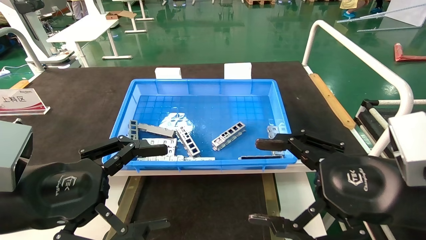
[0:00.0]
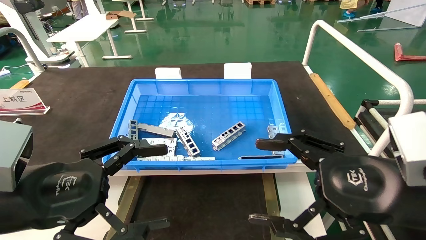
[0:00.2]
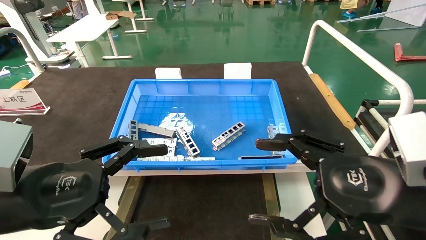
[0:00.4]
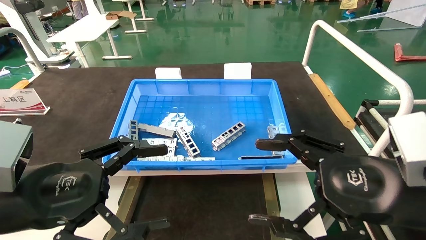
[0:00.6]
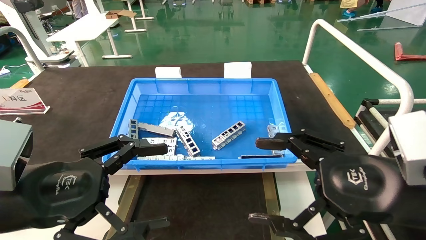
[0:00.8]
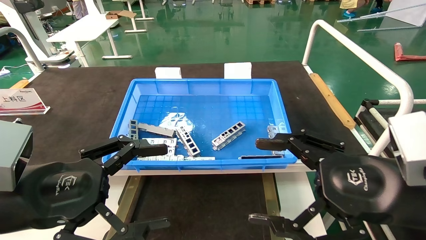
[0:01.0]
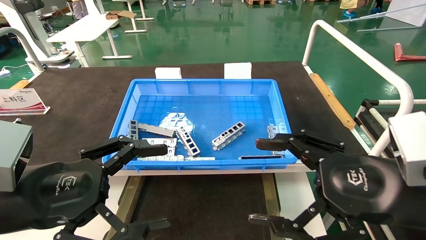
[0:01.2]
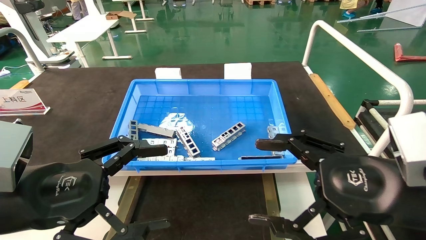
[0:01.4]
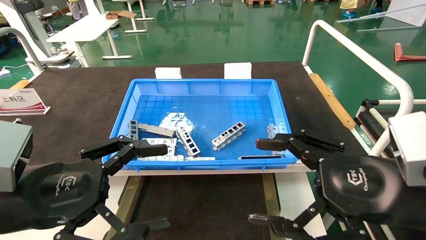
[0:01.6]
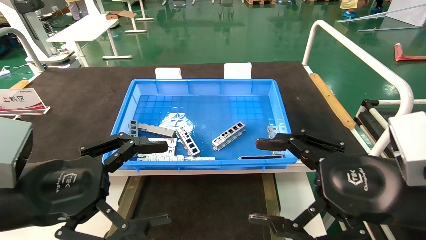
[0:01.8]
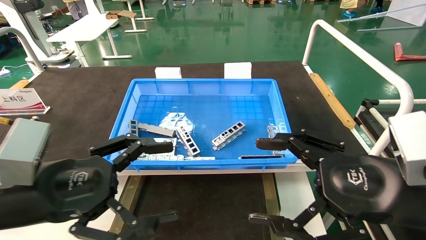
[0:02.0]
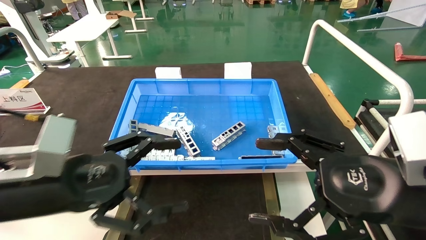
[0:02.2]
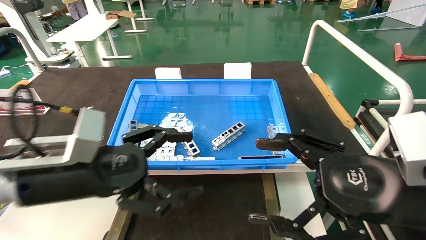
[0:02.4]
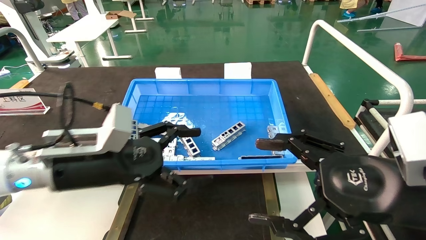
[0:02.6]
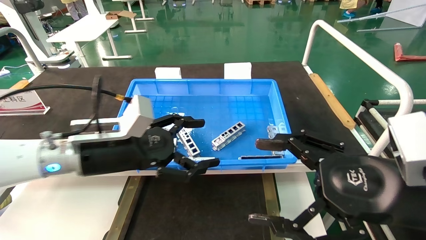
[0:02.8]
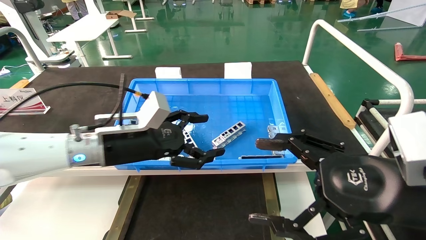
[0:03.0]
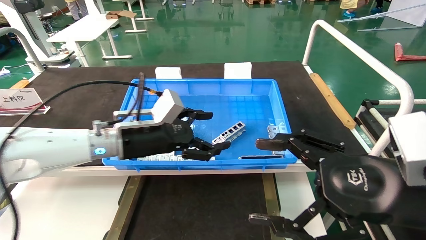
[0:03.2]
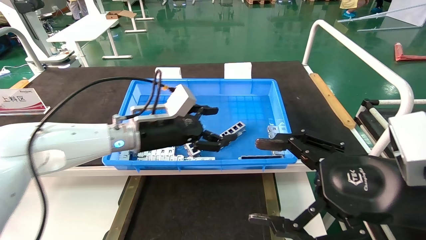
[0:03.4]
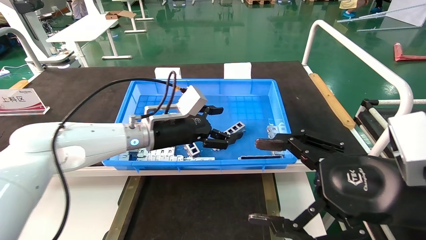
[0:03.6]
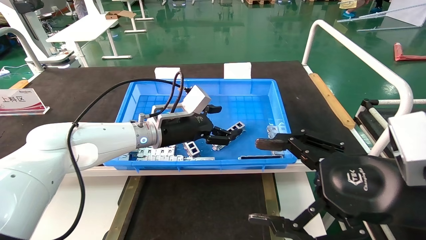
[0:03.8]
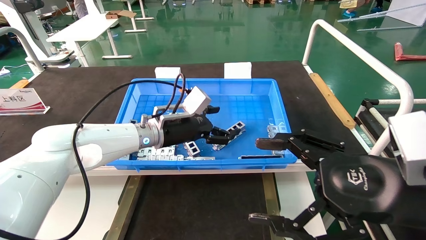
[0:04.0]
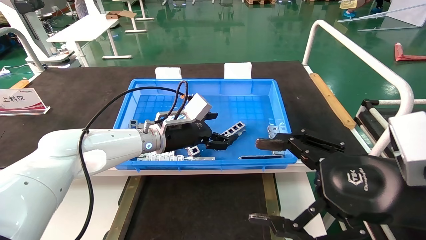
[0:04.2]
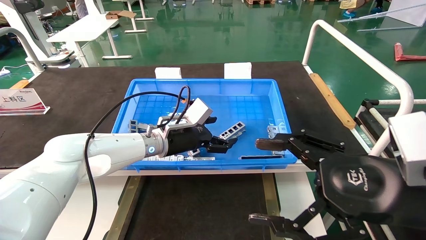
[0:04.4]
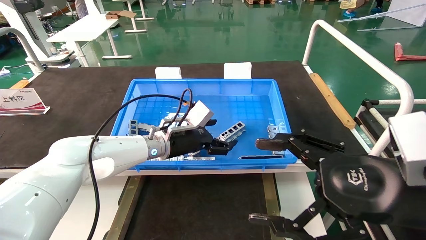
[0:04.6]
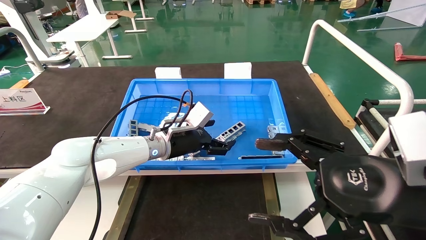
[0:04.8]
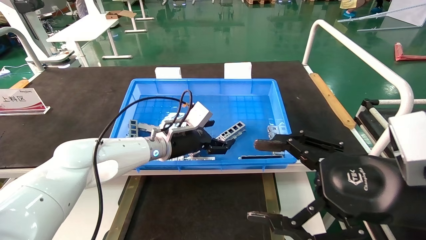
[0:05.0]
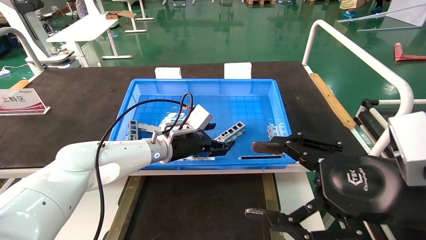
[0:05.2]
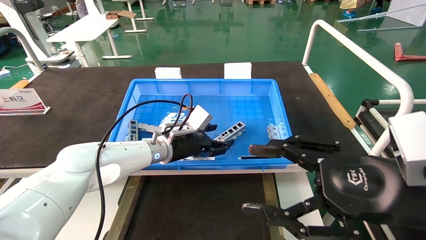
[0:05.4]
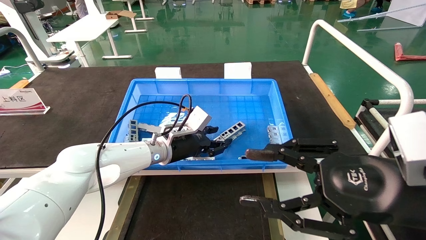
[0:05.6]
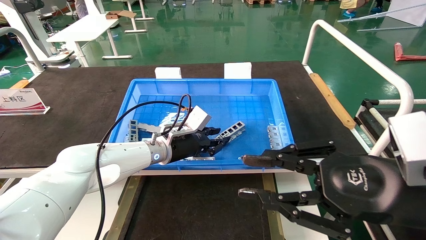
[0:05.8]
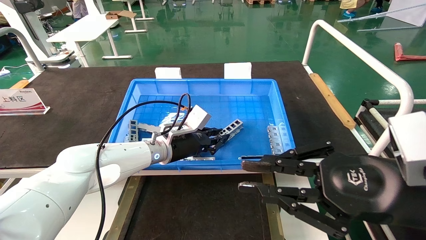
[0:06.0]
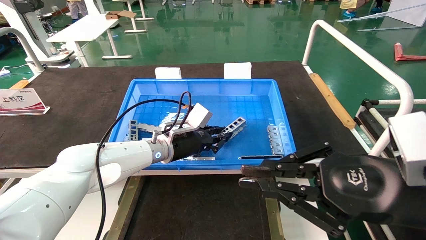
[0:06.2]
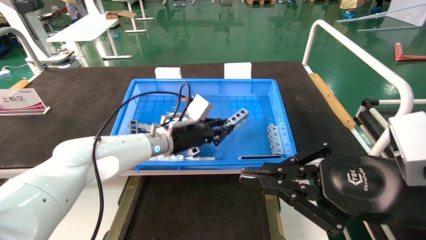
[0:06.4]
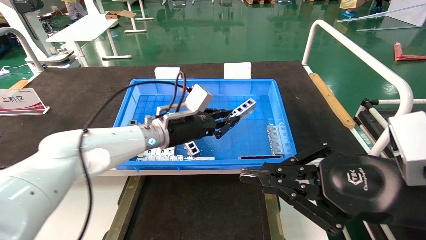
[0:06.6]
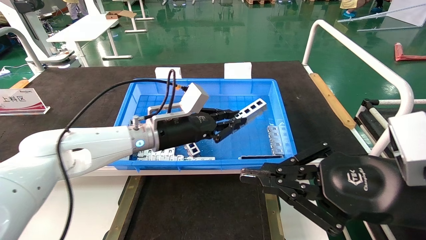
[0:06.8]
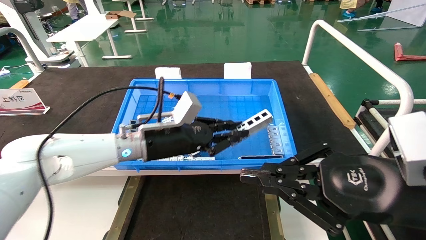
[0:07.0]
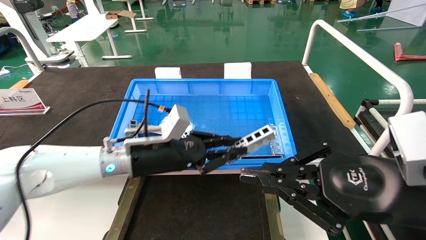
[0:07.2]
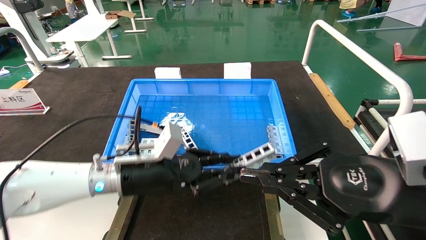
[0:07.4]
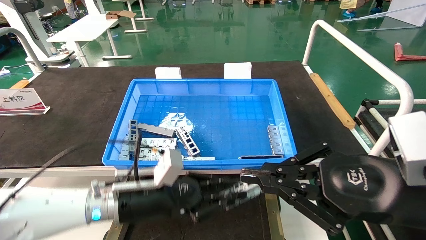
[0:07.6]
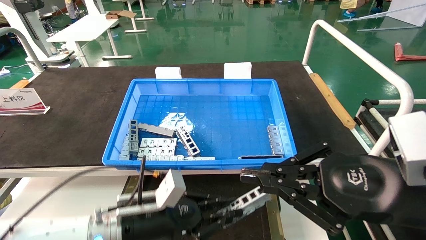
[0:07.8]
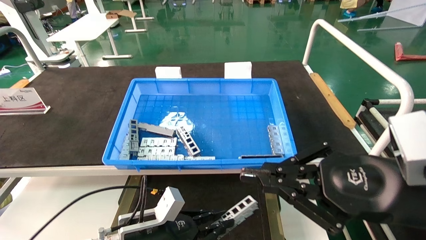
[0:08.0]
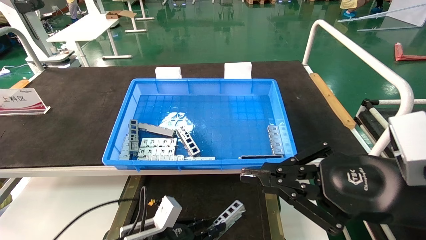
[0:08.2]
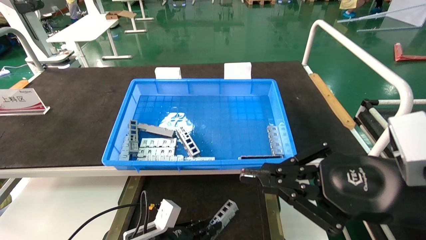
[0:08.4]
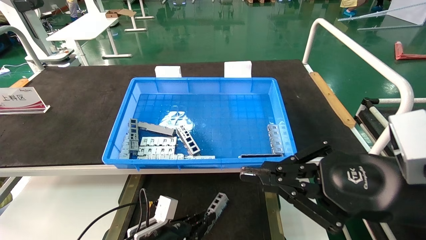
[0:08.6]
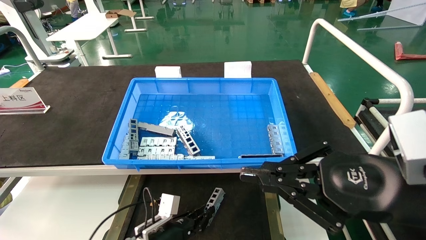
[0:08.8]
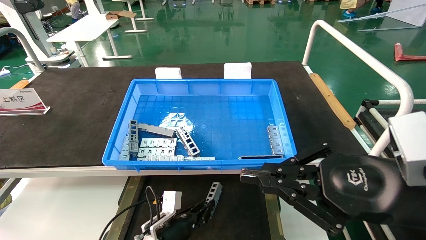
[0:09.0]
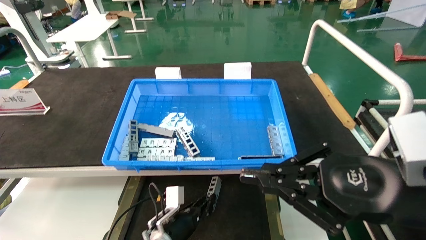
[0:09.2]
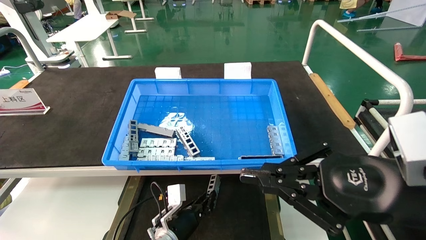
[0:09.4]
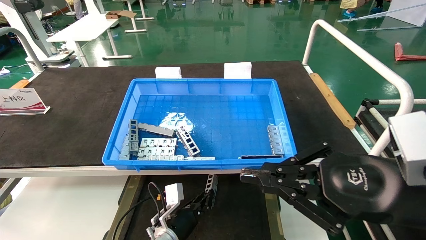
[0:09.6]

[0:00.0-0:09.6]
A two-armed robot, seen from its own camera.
Task of the whole recording: Grasp the part with one hand and place it on the black container.
Step, 0:02.0 to 0:06.0: Pick up the front USB bracket from the feeding area.
0:00.0 to 0:01.6: Neither gripper changes place.
0:01.6 to 0:03.2: The left gripper shifts about 20 cm forward and to the right.
0:03.2 to 0:04.8: The left gripper moves forward, downward and to the right, some 10 cm.
0:04.8 to 0:06.4: The right gripper closes its fingers; the left gripper closes.
0:06.4 to 0:08.0: The left gripper moves downward and backward, approximately 20 cm.
0:08.0 to 0:09.6: The left gripper shifts approximately 15 cm downward, forward and to the right.

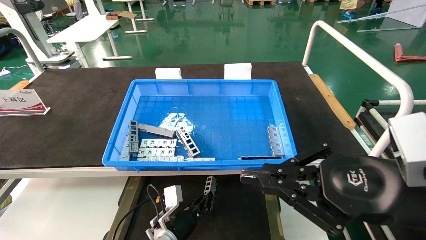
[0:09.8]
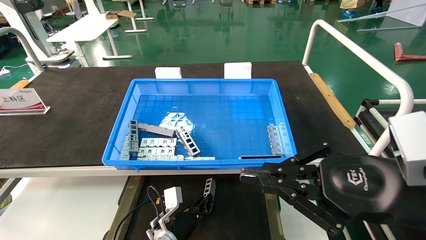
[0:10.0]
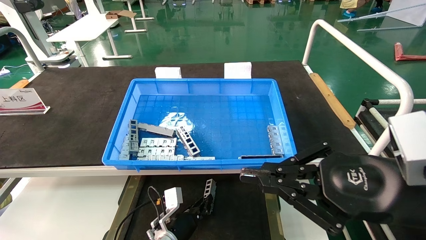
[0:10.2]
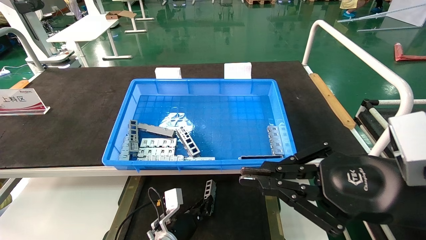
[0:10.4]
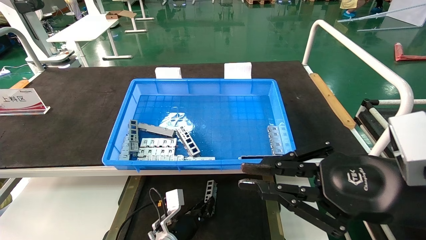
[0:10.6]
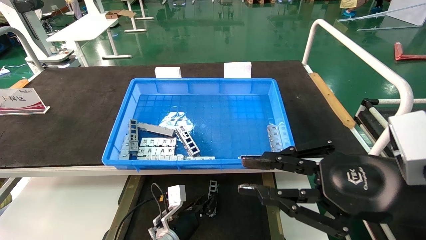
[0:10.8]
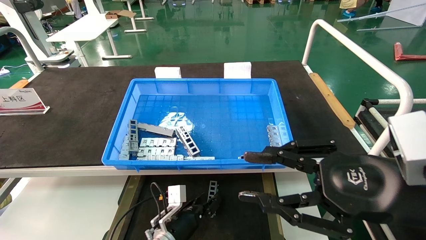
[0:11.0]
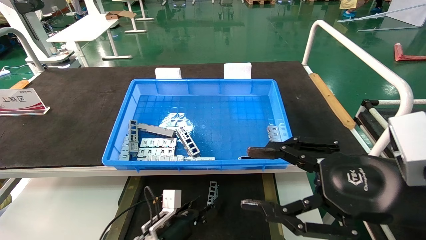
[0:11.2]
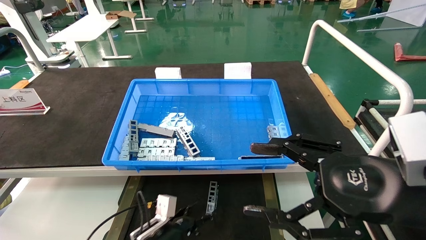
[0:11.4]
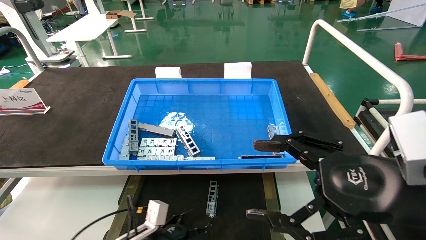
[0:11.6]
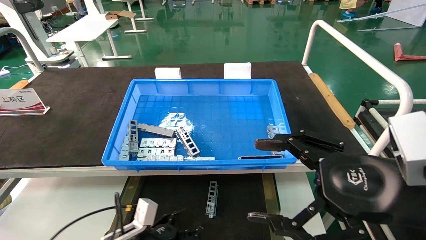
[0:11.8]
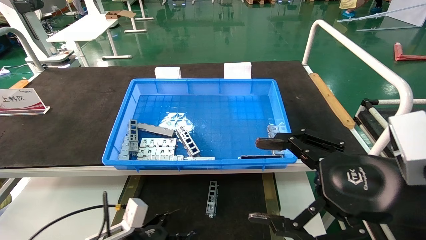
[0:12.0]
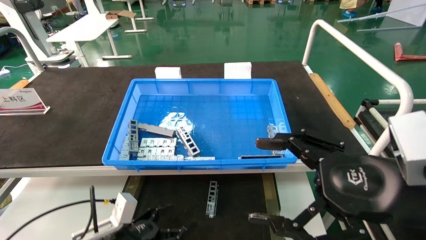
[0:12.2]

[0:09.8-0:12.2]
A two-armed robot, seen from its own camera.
Task of the whole recording: Grasp the part with one hand and place it on the black container.
0:09.8 to 0:11.0: There are only small adjustments of the grippers.
0:11.0 to 0:12.2: The right gripper opens up; the left gripper shifts approximately 15 cm to the left, backward and upward, and opens.

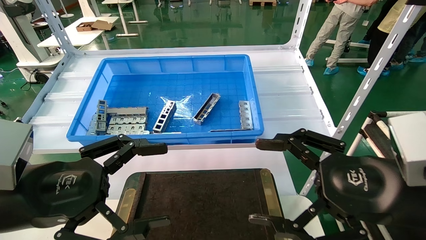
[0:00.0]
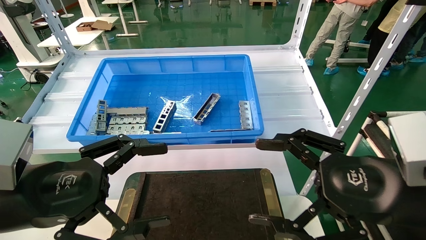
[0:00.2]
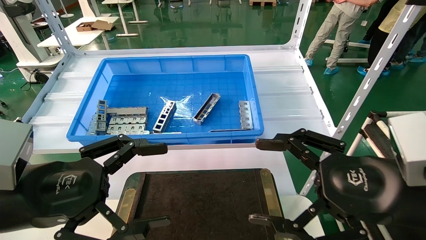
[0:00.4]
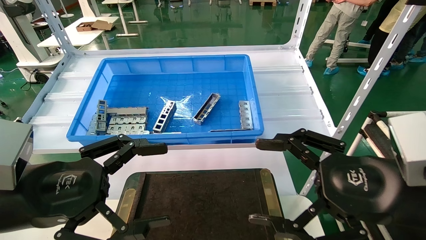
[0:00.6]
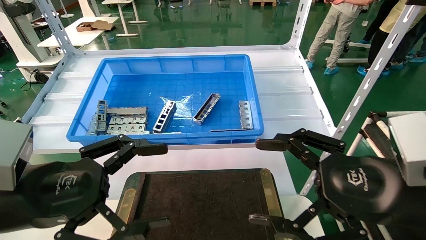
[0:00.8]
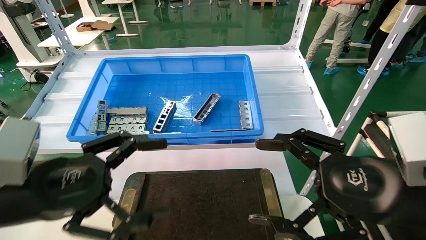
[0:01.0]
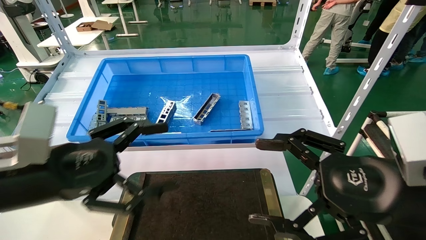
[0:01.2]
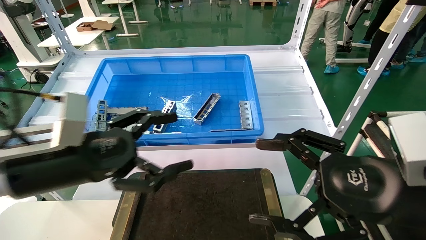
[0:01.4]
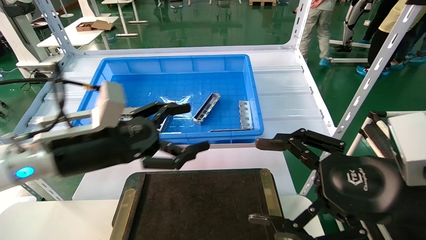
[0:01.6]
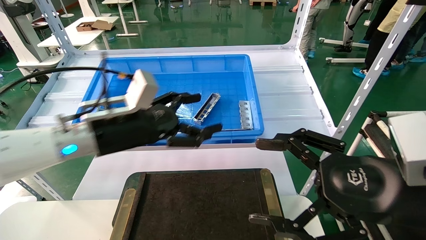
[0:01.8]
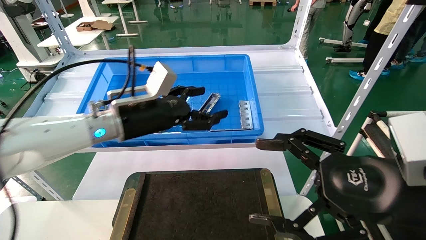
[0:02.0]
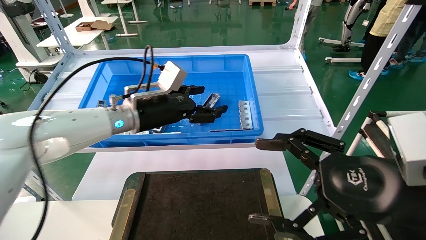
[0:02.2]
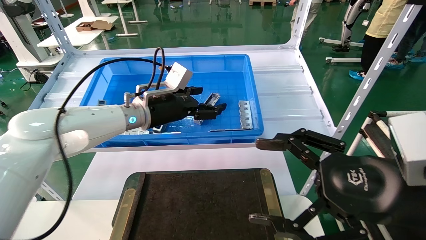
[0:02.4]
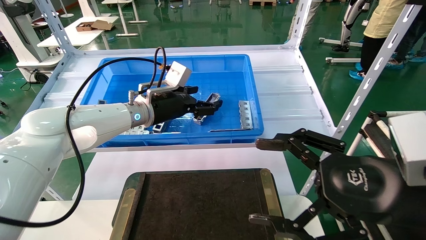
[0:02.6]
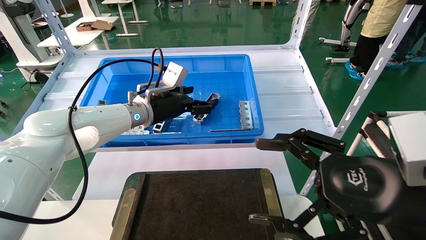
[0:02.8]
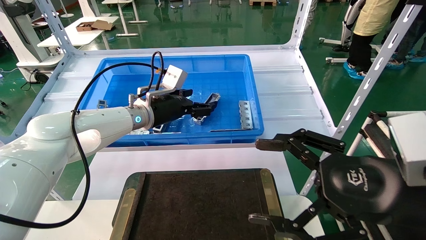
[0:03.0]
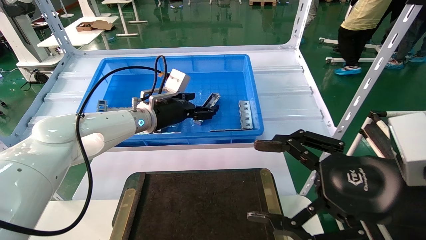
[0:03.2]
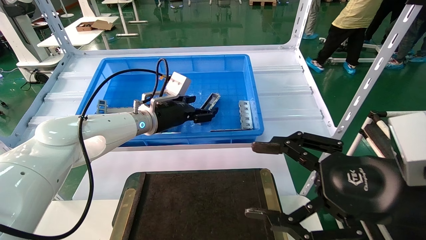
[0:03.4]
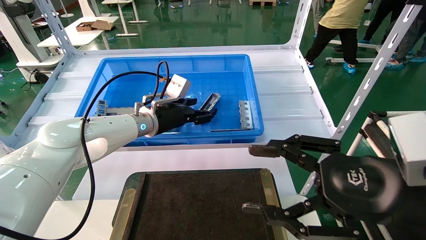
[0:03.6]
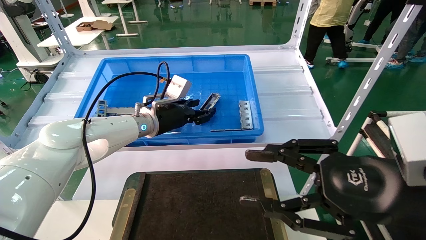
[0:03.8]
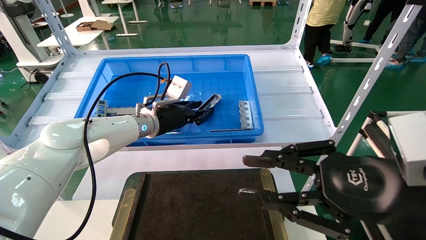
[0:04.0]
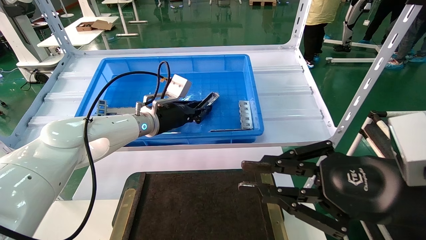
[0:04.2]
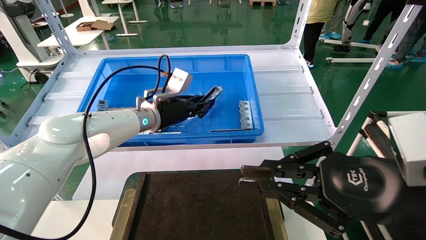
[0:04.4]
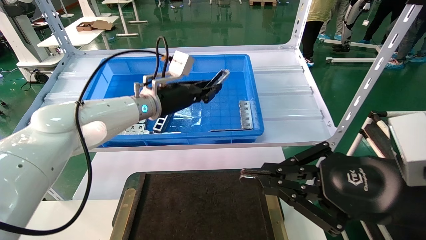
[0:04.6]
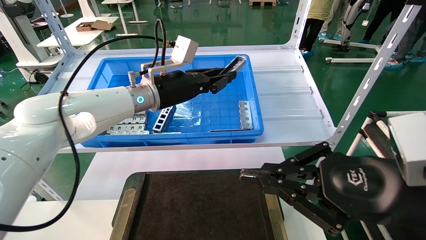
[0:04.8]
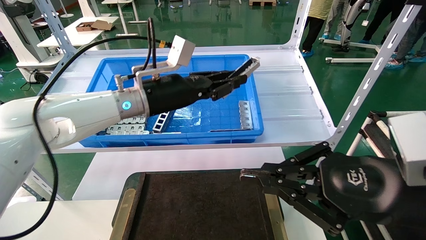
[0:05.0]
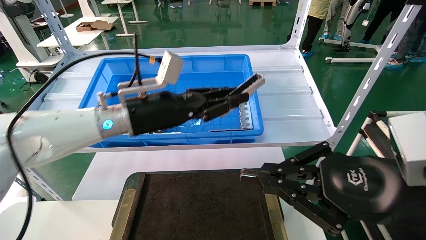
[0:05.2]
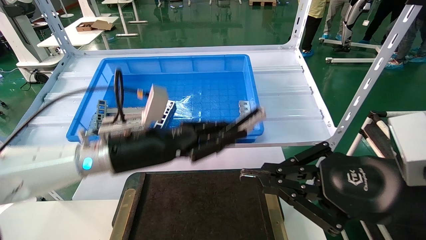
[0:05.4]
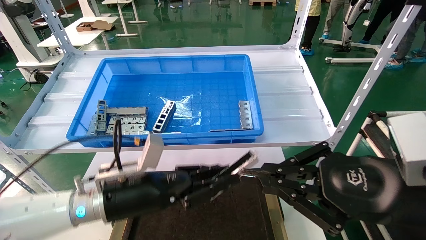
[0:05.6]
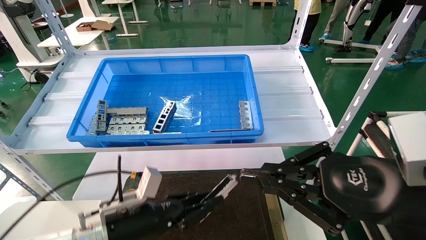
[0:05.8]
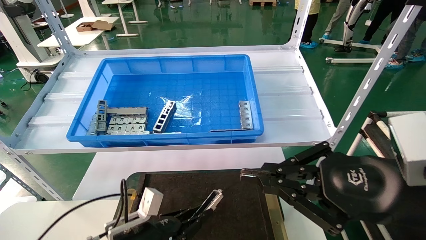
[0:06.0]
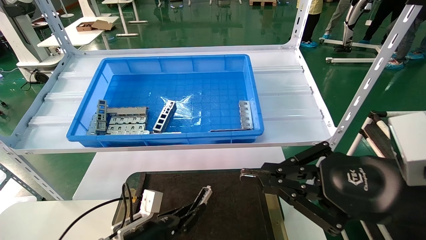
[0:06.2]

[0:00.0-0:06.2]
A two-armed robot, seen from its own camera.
Task of the whole recording: Grasp the part with one hand and place it on the black container.
Step, 0:01.4 to 0:04.6: Pick up the front USB bracket from the feeding area.
0:00.0 to 0:01.6: The left gripper heads forward, covering some 10 cm.
0:01.6 to 0:03.2: The left gripper is displaced forward by approximately 20 cm.
0:03.2 to 0:04.6: The right gripper closes up, while the left gripper closes its fingers.
0:04.6 to 0:06.2: The left gripper heads downward and backward, covering approximately 30 cm.
